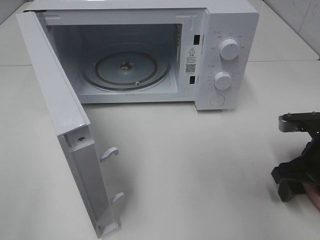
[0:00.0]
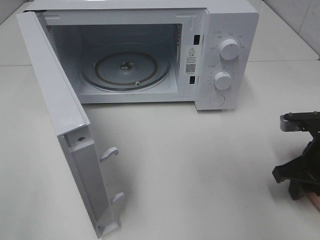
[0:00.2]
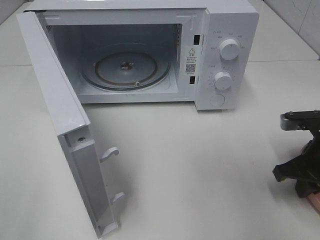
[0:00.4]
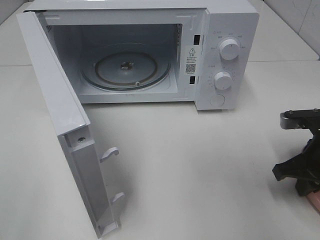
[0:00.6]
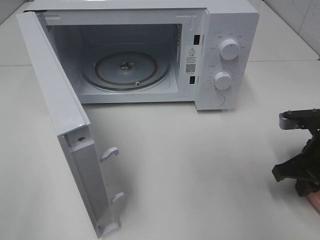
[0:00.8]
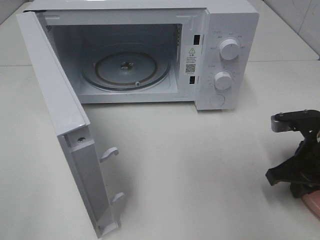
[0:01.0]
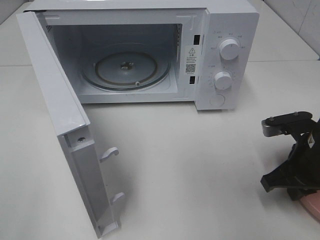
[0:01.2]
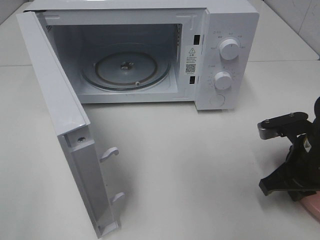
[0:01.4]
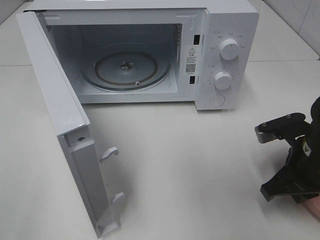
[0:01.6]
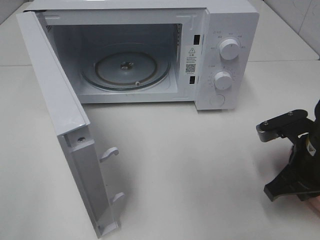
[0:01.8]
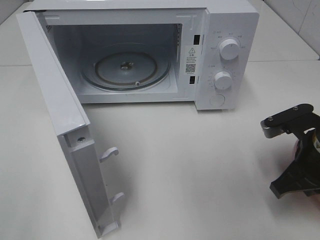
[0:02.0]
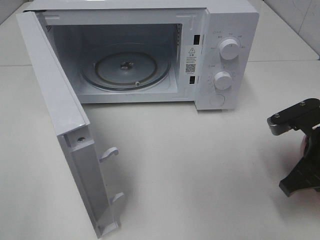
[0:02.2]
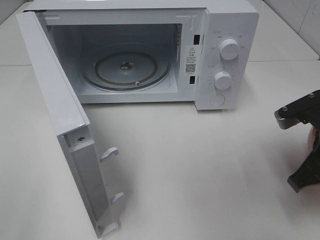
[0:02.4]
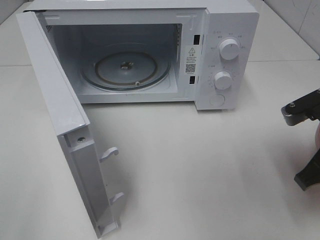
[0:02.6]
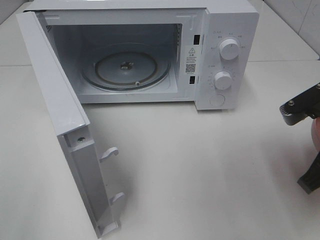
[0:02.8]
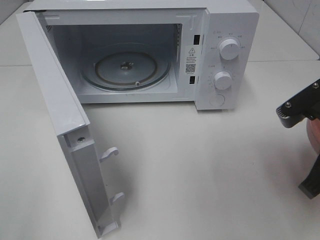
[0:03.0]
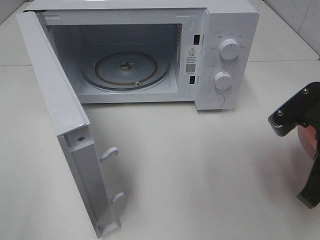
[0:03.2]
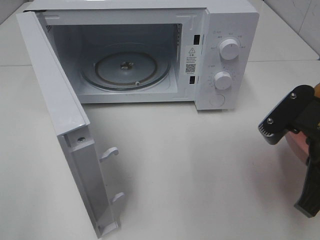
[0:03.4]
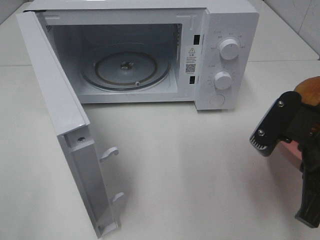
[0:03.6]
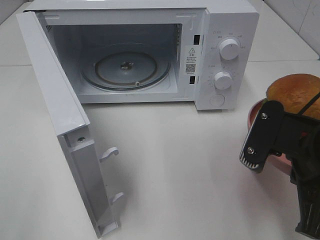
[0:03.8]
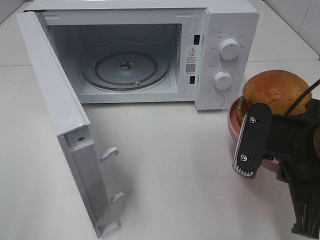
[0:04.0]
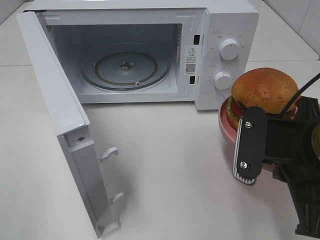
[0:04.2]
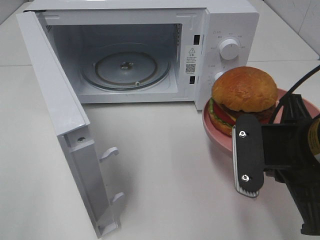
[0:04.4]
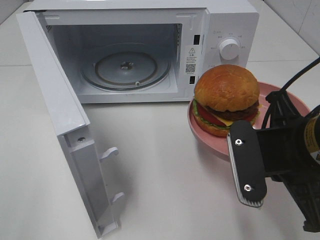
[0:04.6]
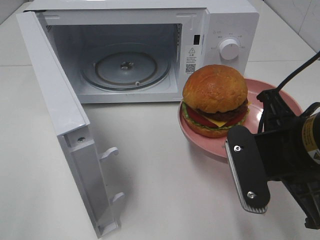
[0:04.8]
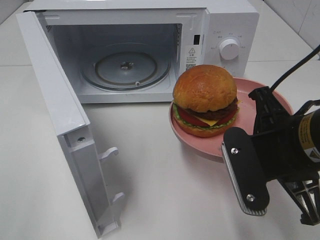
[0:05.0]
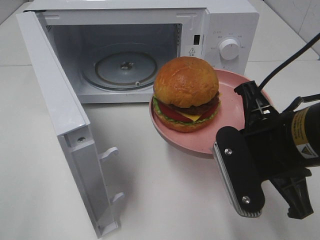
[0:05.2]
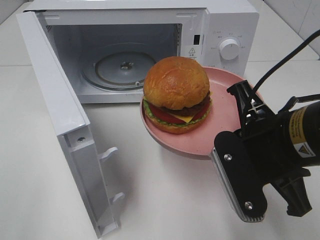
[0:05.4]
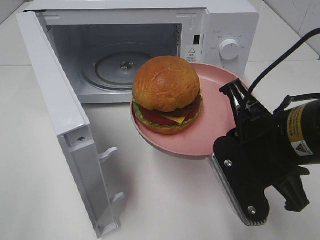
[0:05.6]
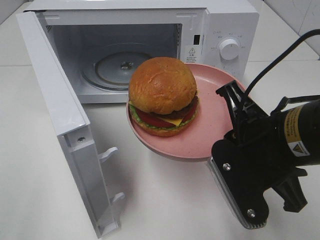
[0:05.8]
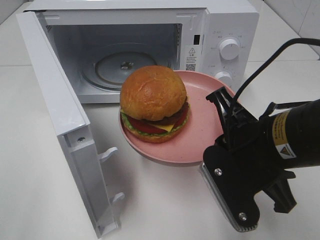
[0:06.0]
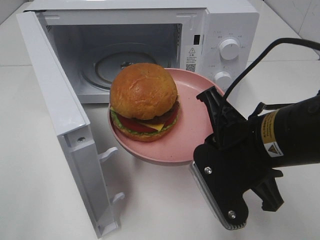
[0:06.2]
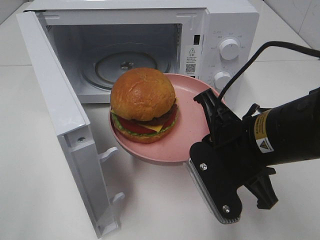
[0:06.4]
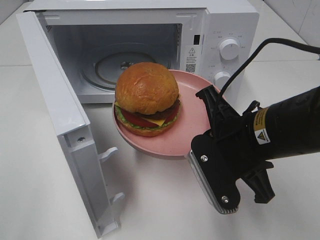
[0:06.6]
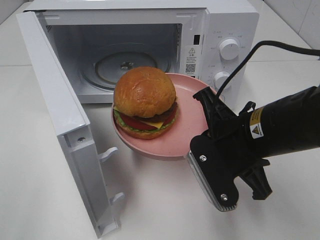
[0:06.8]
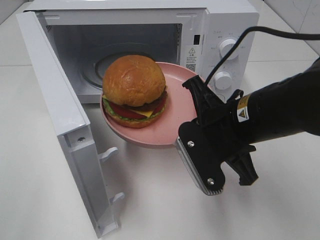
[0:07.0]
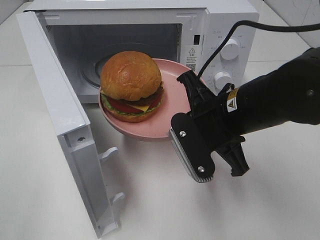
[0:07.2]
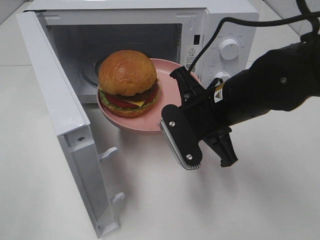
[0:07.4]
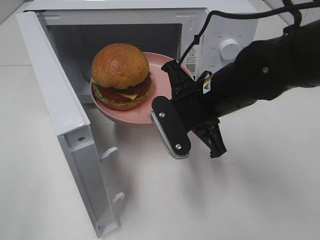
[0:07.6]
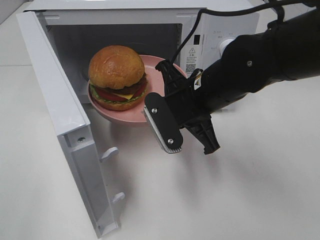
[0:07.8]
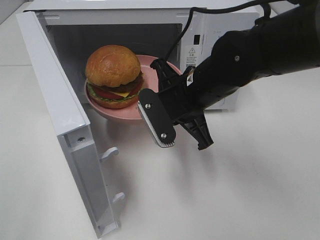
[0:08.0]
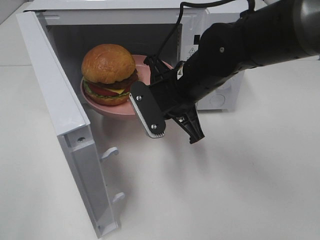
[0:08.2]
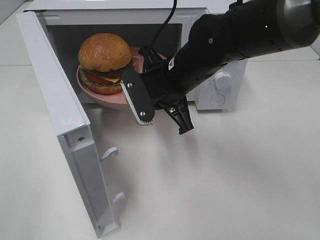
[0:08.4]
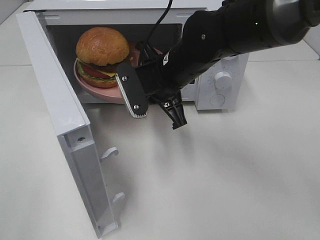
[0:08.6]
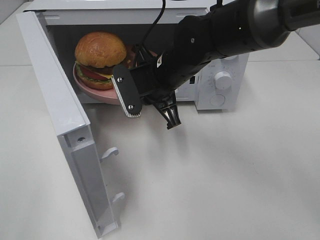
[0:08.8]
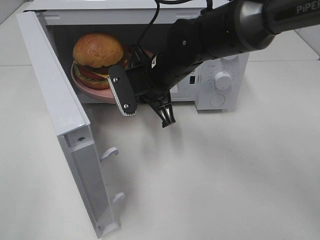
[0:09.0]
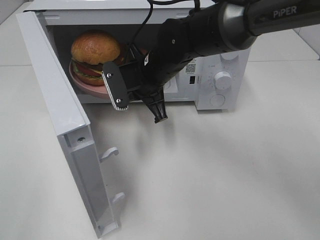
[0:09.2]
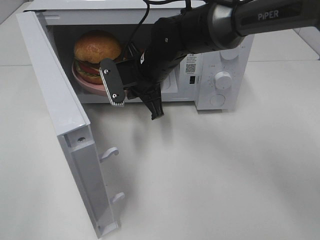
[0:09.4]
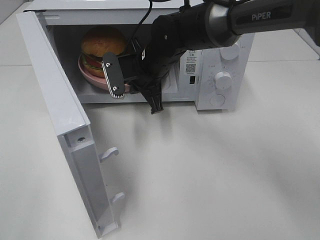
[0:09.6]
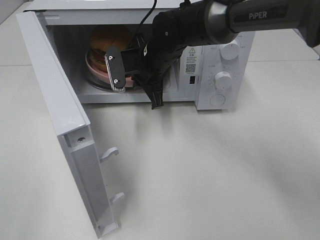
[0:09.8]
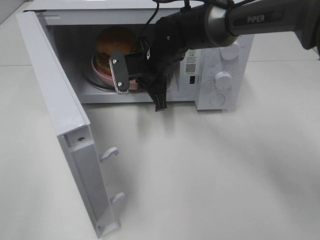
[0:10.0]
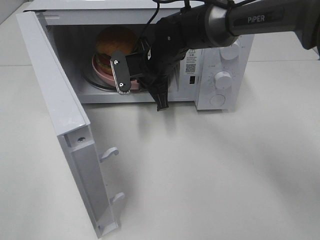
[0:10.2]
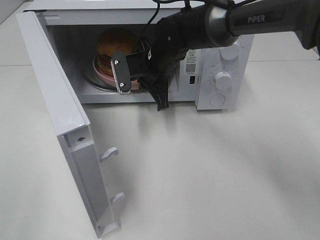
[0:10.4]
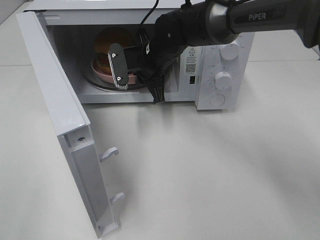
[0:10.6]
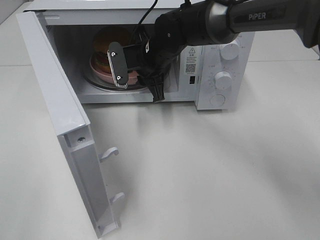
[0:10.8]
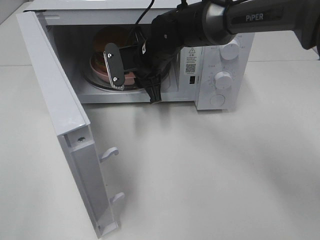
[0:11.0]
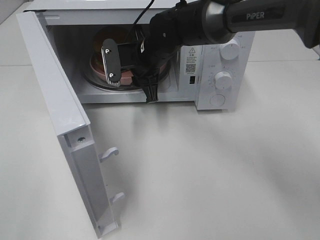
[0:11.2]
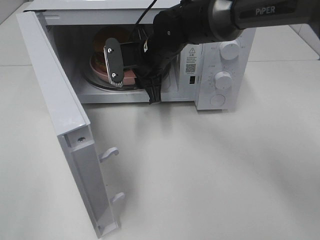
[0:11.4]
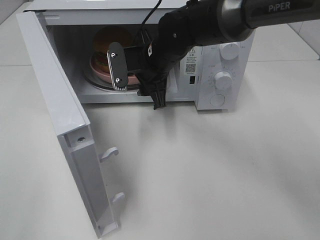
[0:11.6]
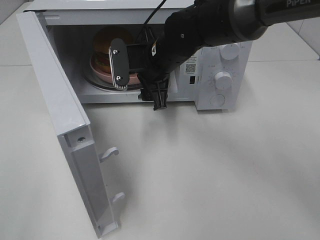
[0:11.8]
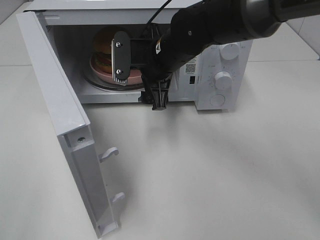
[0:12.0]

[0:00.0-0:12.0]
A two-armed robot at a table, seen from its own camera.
Task of the whole recording: Heat the burger.
Step, 0:00.6 to 0:10.6: Right hand: place the plate in the microwave.
0:00.0 to 0:01.6: The right gripper closes.
0:01.6 to 0:03.0: The right gripper moves upward, some 10 cm.
0:03.0 to 0:04.4: The right gripper moves to the left, roughly 5 cm.
0:06.0 to 0:07.6: The right gripper travels forward by about 10 cm.
0:07.6 to 0:09.0: The right gripper heads forward and to the left, covering approximately 10 cm.
0:09.0 to 0:10.4: The right gripper goes about 5 cm forward.
0:10.4 to 0:12.0: The right gripper travels backward by roughly 5 cm, and opens.

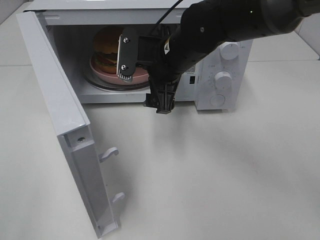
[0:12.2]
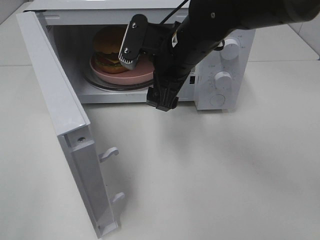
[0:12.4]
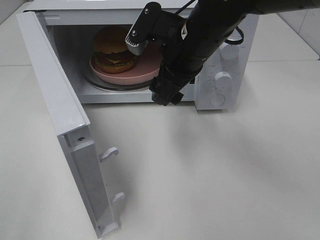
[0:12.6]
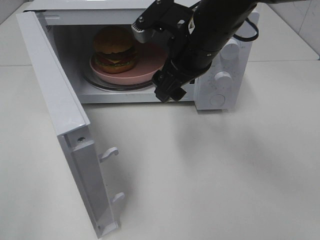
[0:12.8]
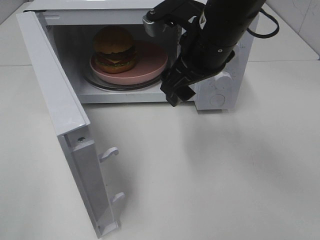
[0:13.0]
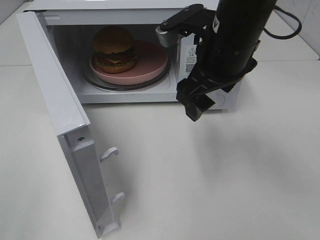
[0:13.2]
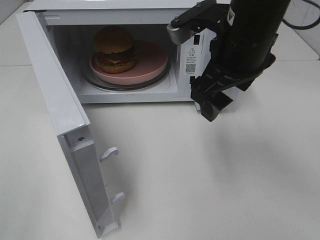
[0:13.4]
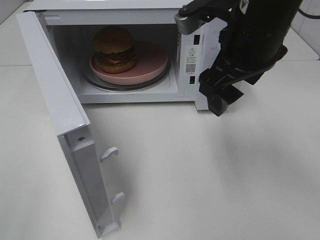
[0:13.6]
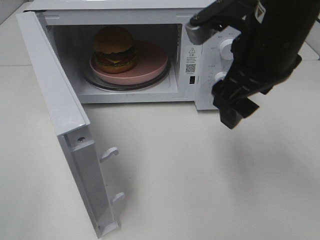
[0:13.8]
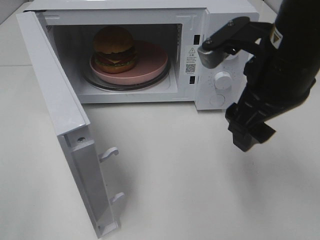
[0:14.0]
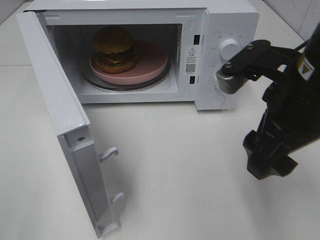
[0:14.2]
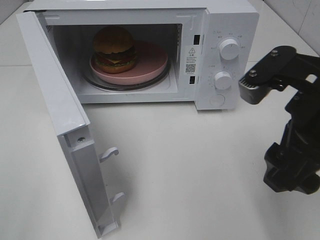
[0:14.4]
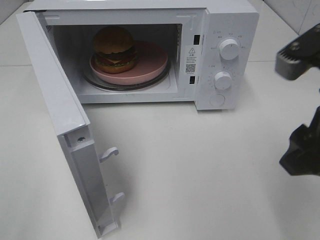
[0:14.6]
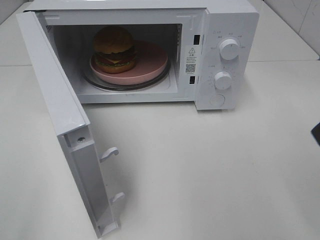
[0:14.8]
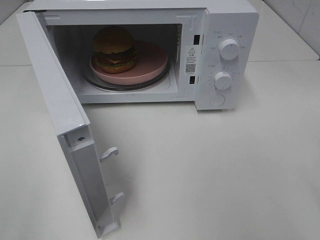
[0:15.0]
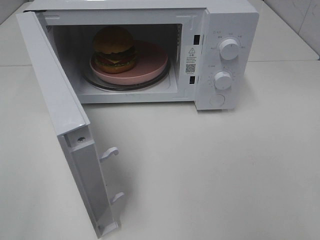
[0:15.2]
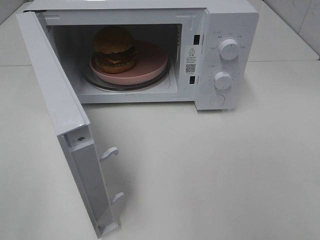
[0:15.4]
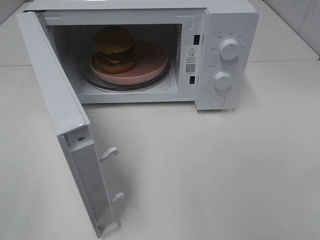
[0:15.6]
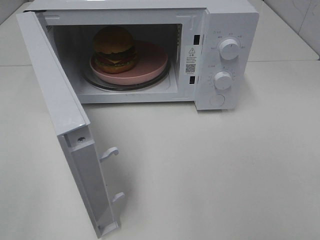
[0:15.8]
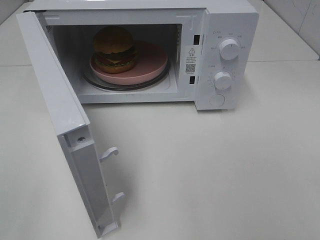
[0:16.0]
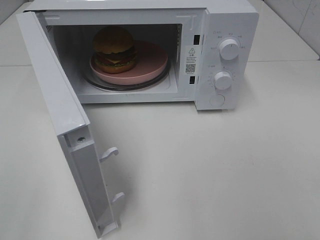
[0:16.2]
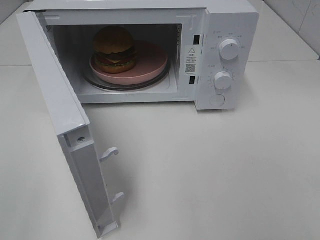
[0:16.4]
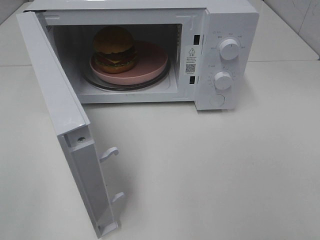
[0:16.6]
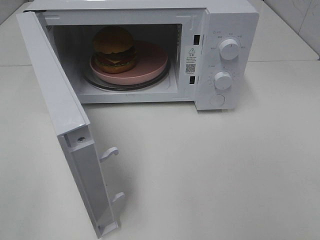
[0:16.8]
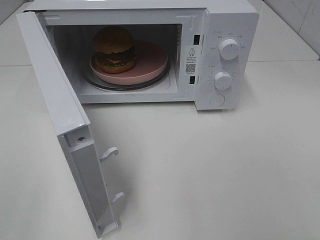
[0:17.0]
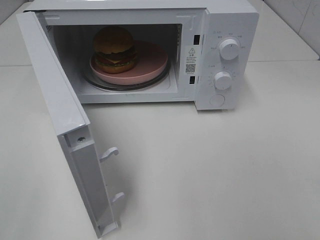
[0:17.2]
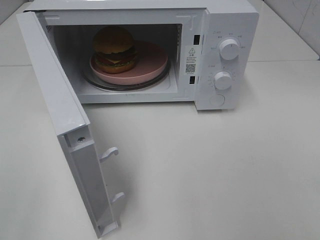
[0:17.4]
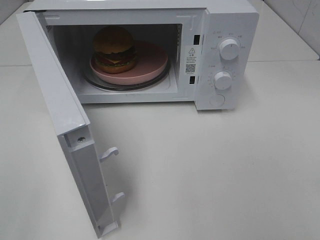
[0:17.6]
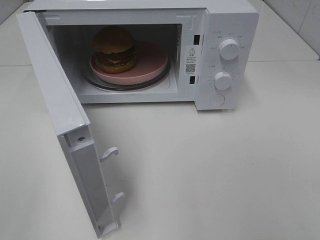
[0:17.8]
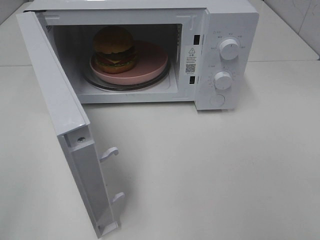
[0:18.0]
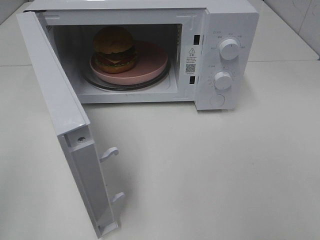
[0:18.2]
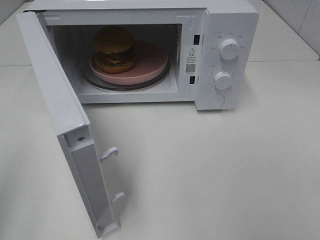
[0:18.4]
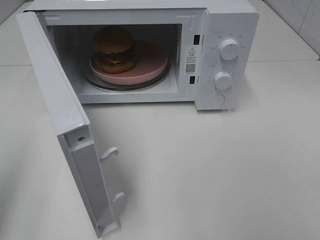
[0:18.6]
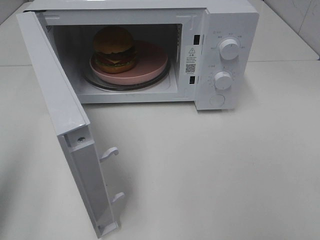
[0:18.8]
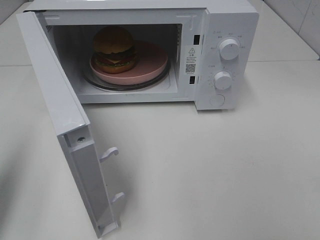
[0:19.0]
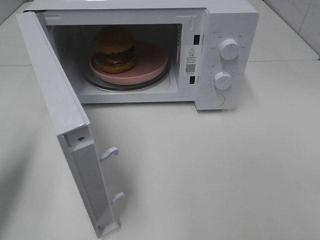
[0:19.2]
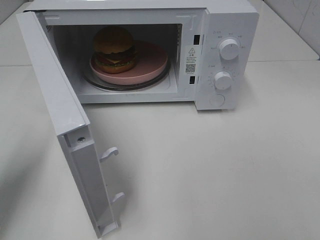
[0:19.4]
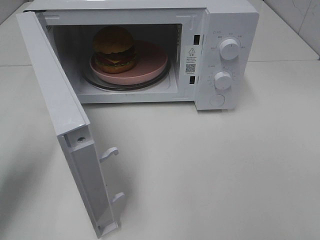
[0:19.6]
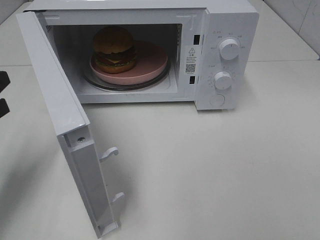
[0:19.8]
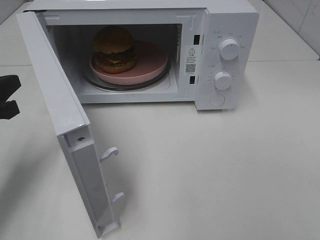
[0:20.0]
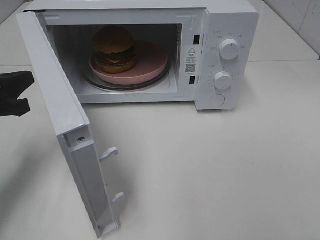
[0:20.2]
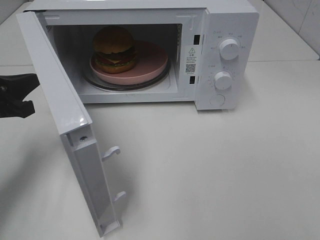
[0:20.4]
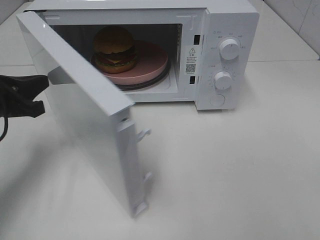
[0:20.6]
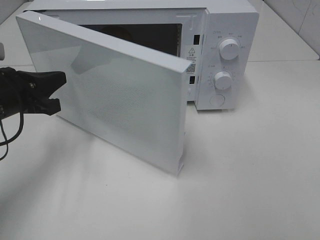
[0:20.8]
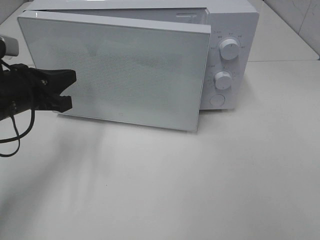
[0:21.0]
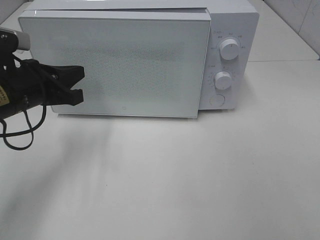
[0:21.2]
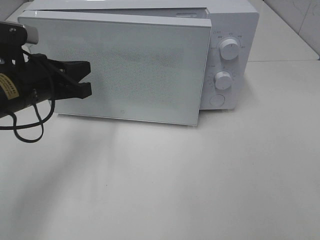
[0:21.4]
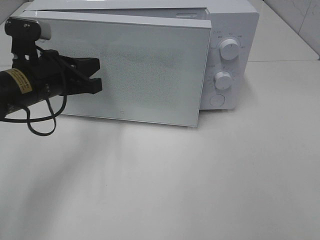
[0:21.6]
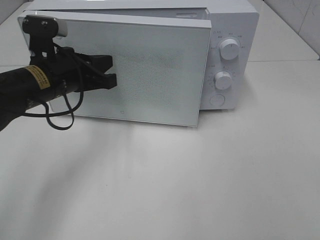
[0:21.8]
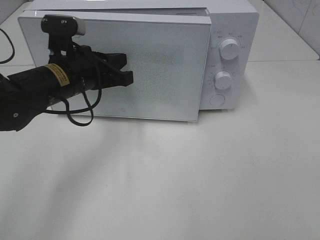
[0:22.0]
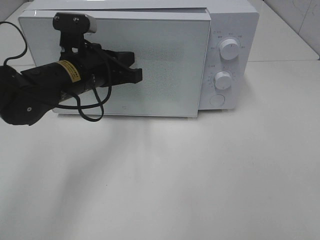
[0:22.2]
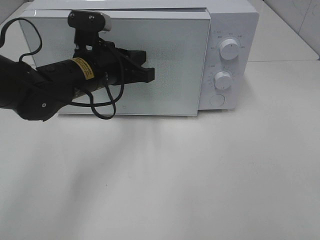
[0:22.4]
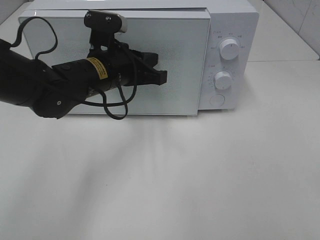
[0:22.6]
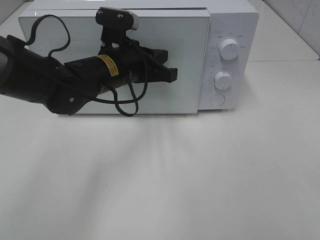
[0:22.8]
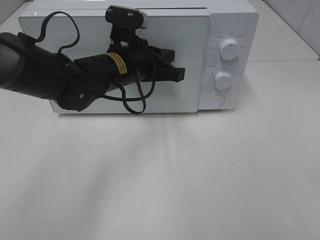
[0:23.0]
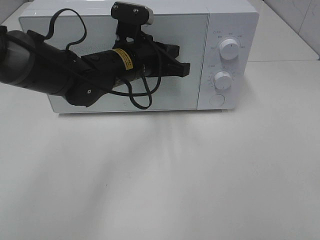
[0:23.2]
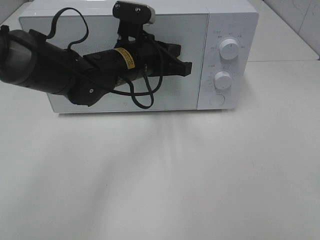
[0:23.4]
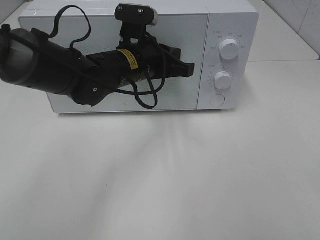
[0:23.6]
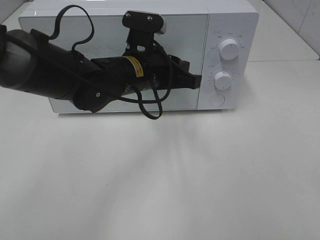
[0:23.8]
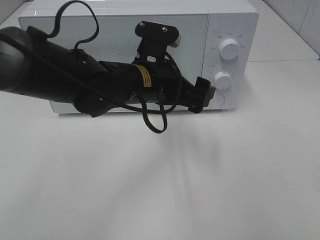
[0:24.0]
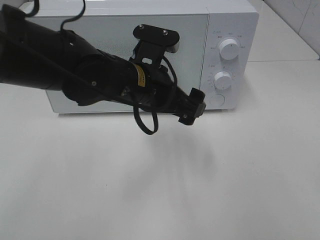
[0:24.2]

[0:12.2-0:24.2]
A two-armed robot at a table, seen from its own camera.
Task of the whole recording: Heat the burger.
Step, 0:12.2 to 0:23.2: Left hand: close the microwave door.
0:12.2 to 0:13.8: The right gripper goes roughly 15 cm backward, to the right and upward.
0:13.8 to 0:15.2: The right gripper moves backward and to the right, about 25 cm.
0:18.2 to 0:19.8: The left gripper goes some 25 cm forward and downward.
0:19.8 to 0:21.2: The left gripper moves to the right and forward, roughly 10 cm.
0:21.2 to 0:22.6: The left gripper shifts roughly 15 cm to the right and forward.
0:22.6 to 0:24.2: The left gripper is displaced backward and to the right by some 10 cm, and opens its fingers.
